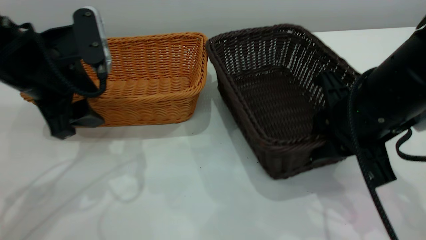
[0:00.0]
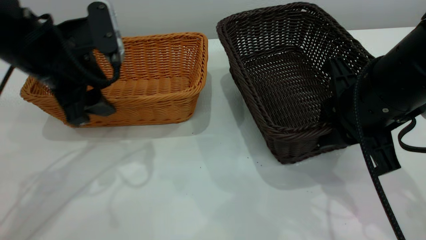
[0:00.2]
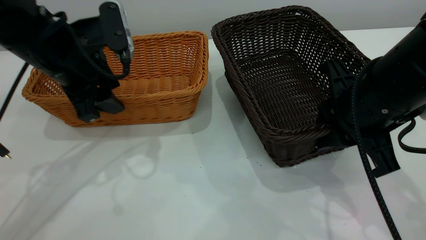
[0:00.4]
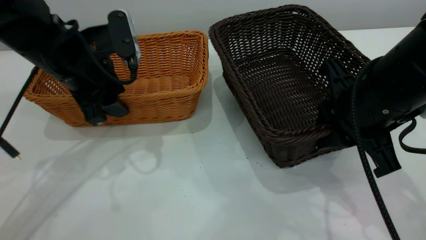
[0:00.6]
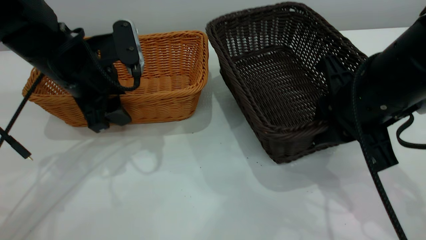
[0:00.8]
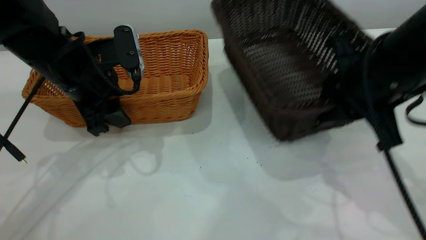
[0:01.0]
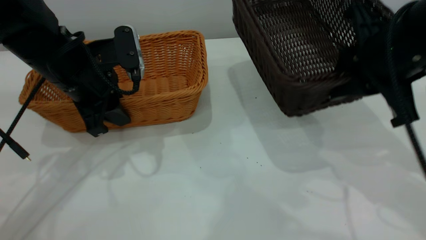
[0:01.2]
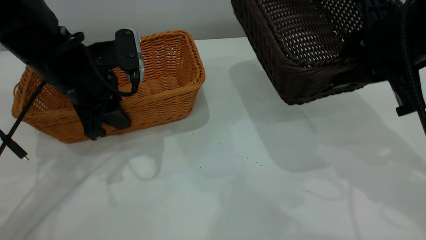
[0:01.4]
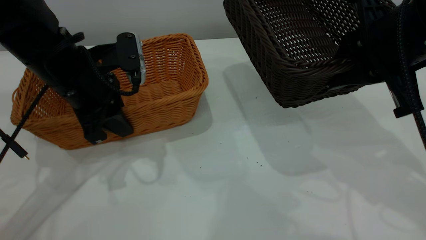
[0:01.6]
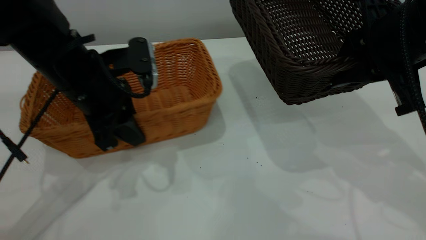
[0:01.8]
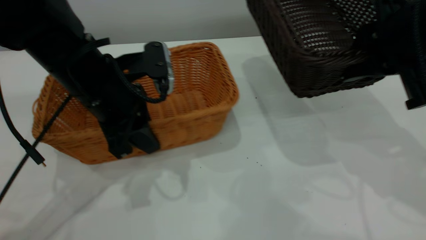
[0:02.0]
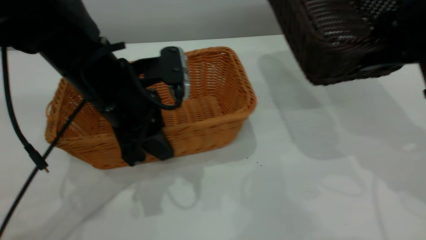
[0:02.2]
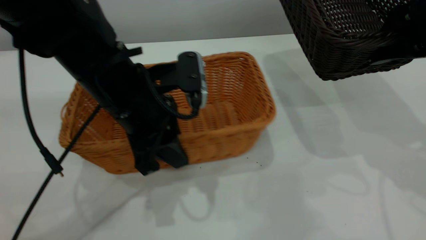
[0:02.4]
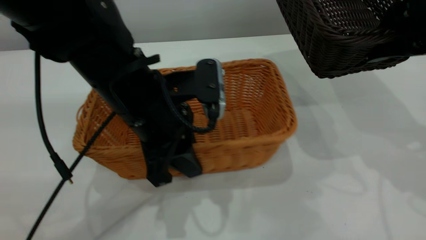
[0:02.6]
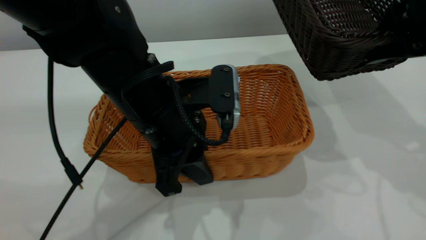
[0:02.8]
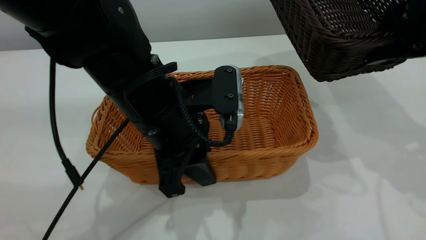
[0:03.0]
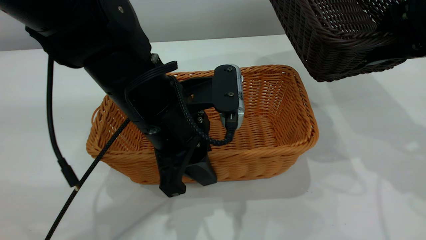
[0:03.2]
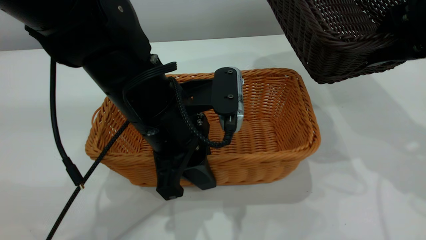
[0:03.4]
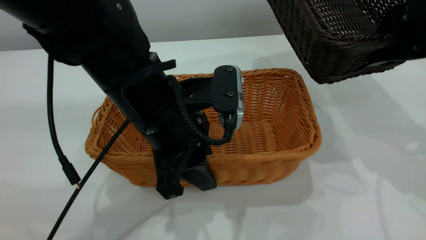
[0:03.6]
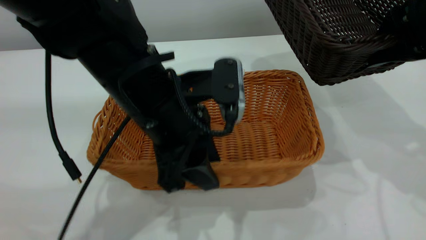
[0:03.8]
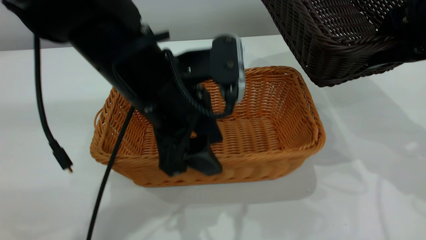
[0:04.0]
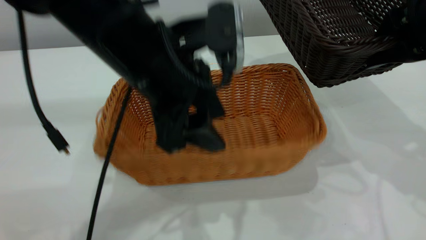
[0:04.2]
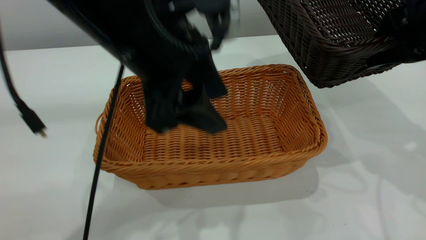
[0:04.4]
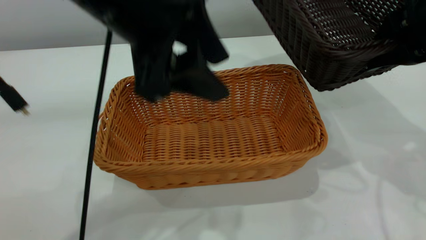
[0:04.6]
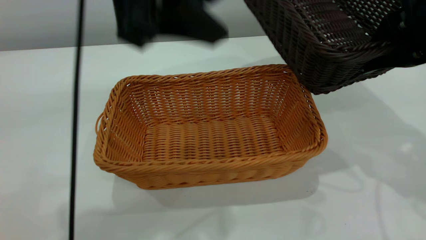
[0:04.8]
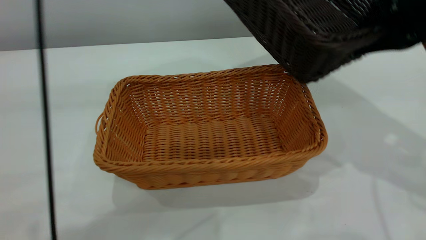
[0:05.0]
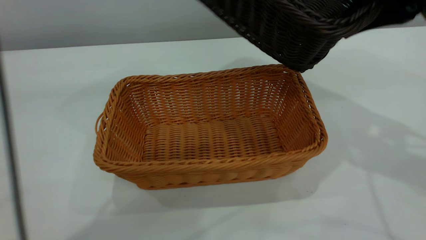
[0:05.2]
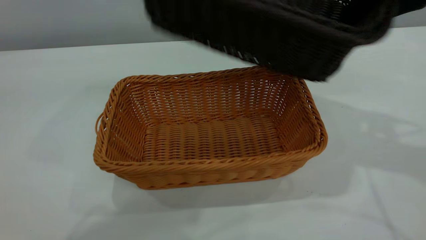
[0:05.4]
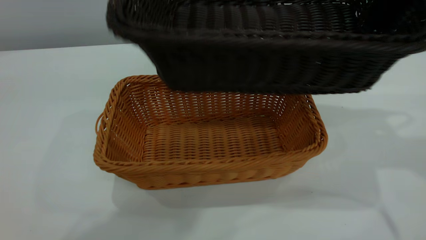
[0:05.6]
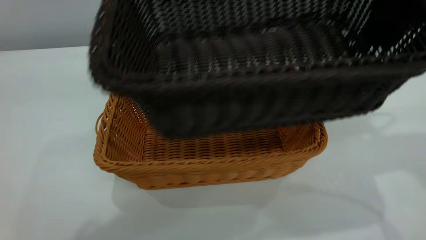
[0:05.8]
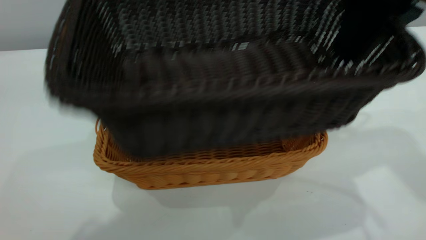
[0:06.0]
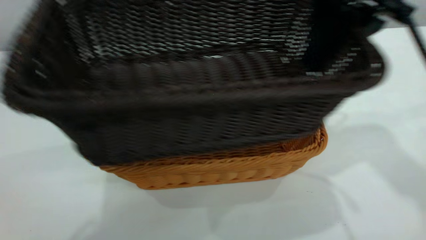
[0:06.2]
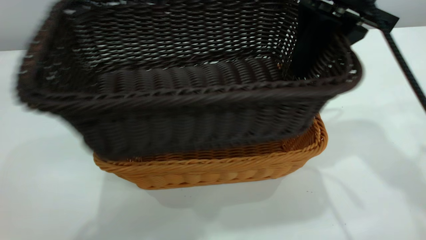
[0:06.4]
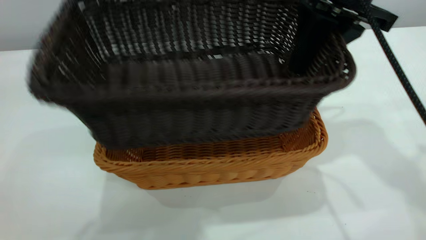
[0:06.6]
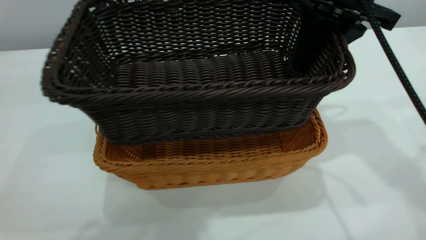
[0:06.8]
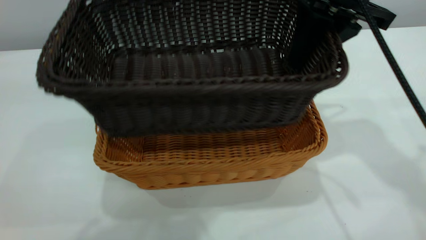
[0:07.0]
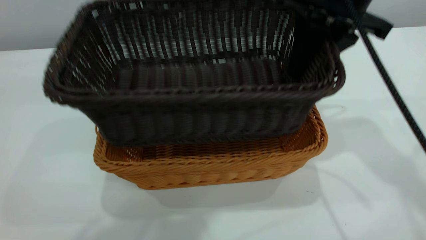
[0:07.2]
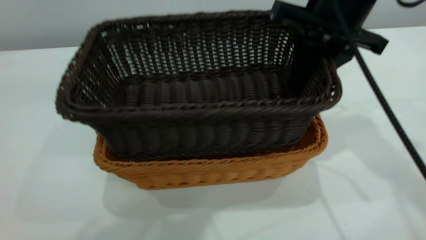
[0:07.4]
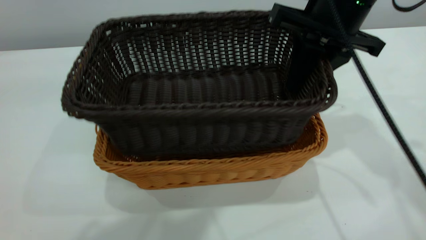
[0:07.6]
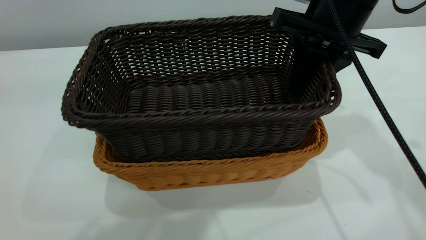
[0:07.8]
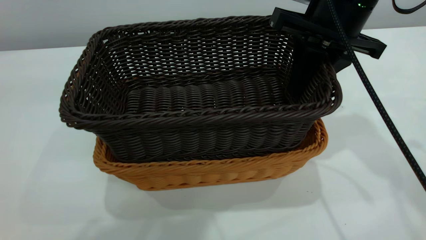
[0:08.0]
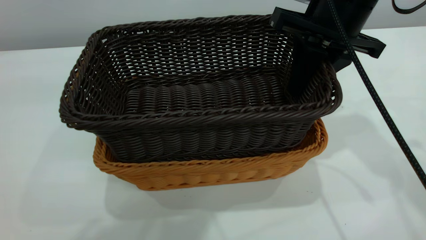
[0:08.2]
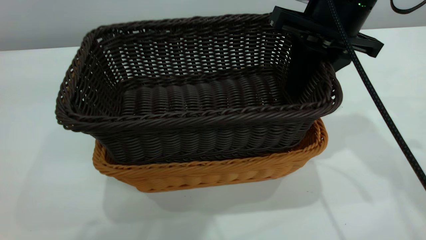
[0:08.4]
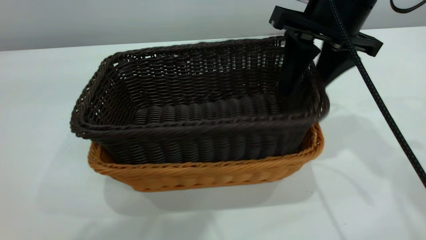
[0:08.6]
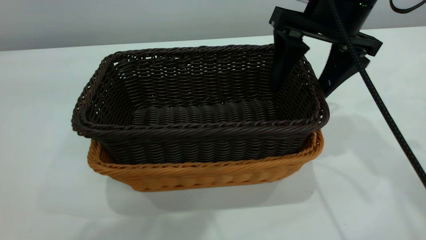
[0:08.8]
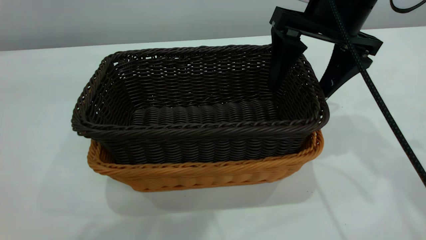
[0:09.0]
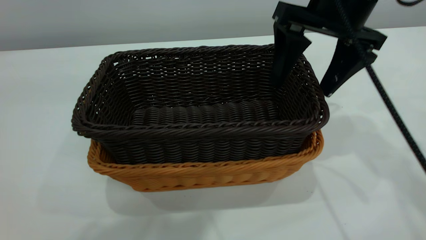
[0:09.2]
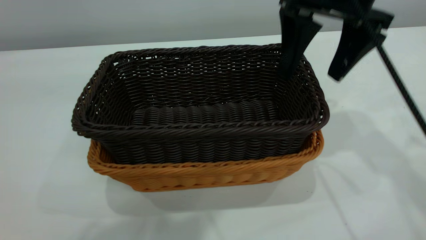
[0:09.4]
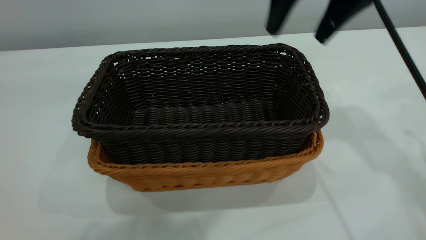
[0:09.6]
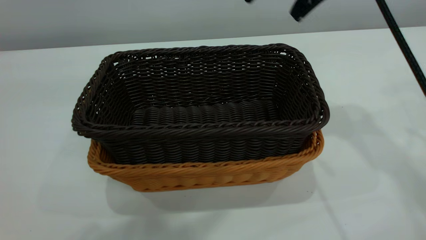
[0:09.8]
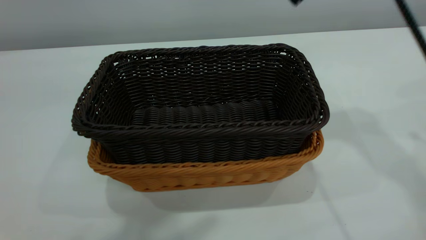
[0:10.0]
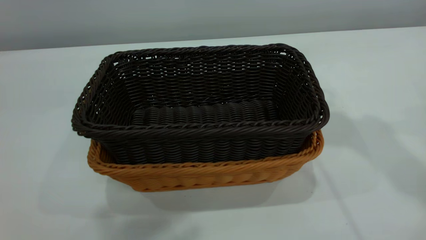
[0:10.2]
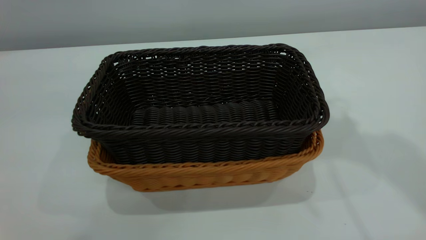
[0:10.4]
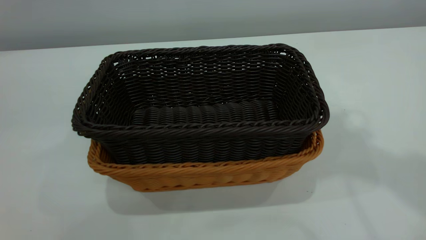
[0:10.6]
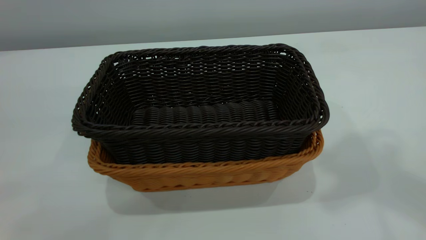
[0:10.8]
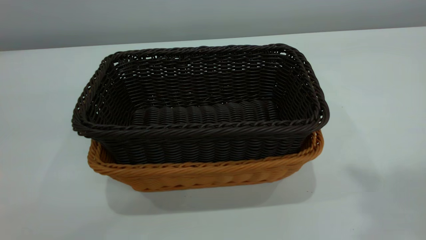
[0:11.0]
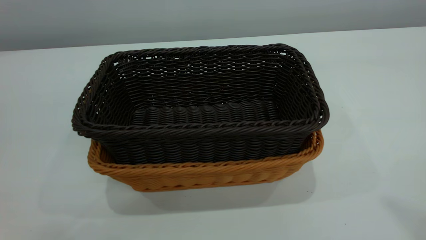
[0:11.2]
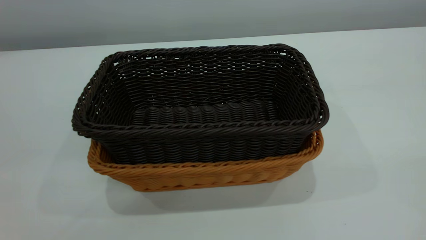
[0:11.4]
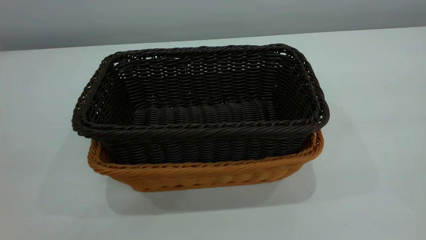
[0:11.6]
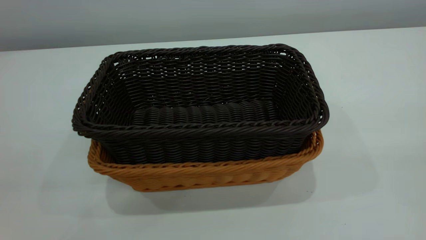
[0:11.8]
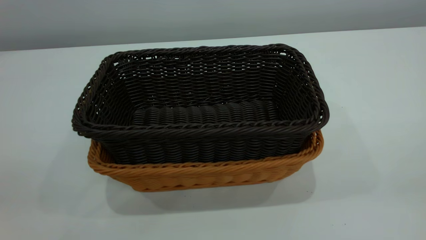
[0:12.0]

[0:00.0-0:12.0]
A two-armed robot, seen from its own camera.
Task of the whole recording: the left gripper grasp the brown basket and place it in the center of the table, the right gripper grasp the black basket and place it inside the brown one.
Step, 0:01.2 to 0:04.2: Place the light-colored basket in the center.
Step, 0:04.4 to 0:09.4: Place the dark basket on top of the light basket.
0:00.0 to 0:01.6: The left gripper moves some 5 cm, and closes, while the right gripper is displaced upward by some 5 cm.
0:01.6 to 0:03.0: The left gripper moves to the right and backward, about 15 cm.
0:03.0 to 0:04.4: The left gripper moves upward, some 10 cm, and opens up.
0:04.4 to 0:06.0: The left gripper heads upward, covering approximately 25 cm; the right gripper travels to the left and upward by roughly 10 cm.
0:06.0 to 0:07.6: The right gripper shifts approximately 5 cm downward.
0:07.6 to 0:09.0: The right gripper opens up.
0:09.0 to 0:10.4: The left gripper heads backward, covering roughly 5 cm, and closes. Meanwhile the right gripper is displaced upward by some 20 cm, and closes up.

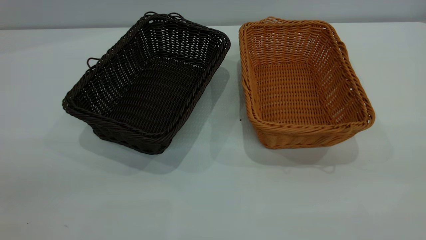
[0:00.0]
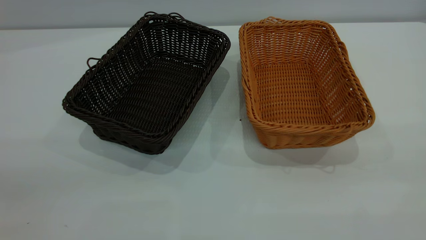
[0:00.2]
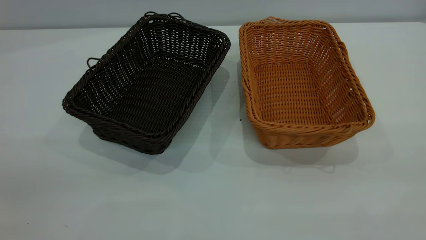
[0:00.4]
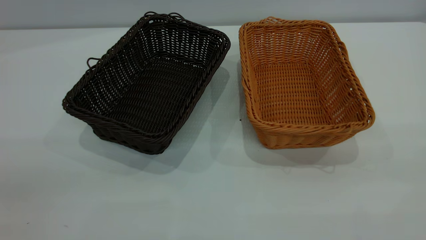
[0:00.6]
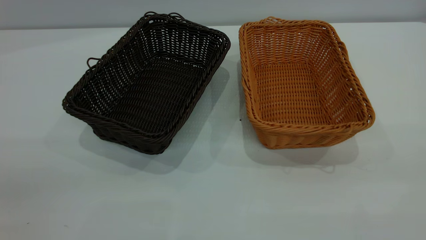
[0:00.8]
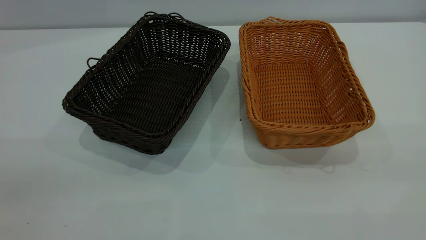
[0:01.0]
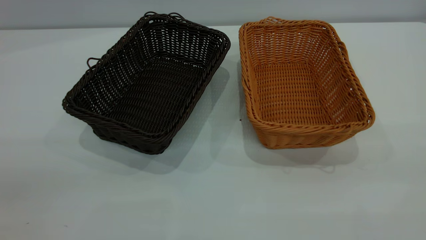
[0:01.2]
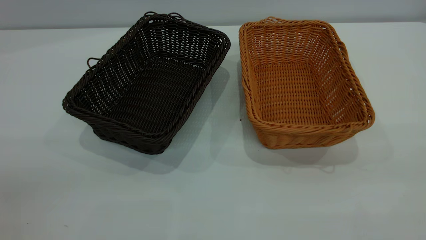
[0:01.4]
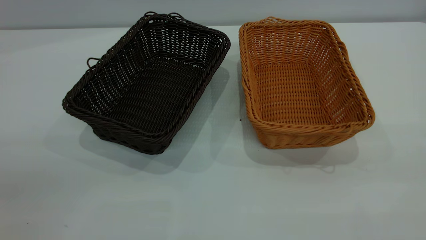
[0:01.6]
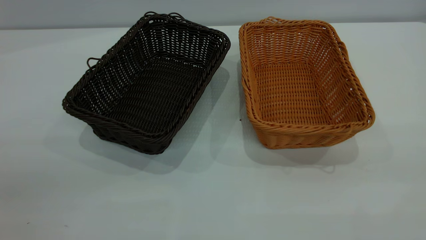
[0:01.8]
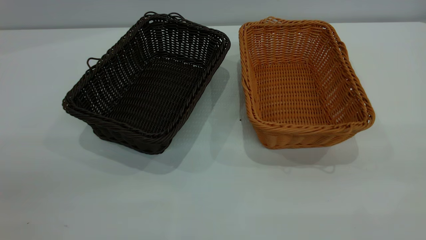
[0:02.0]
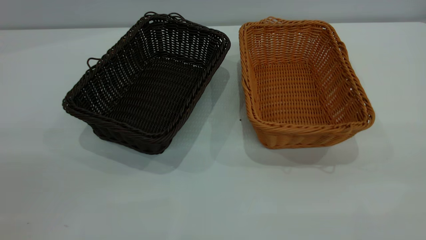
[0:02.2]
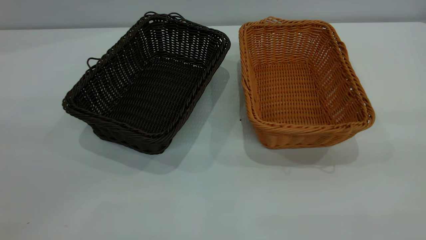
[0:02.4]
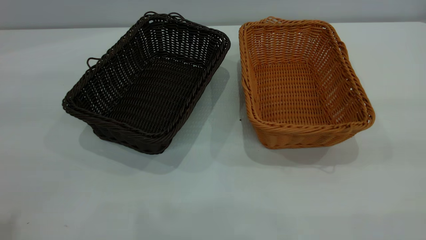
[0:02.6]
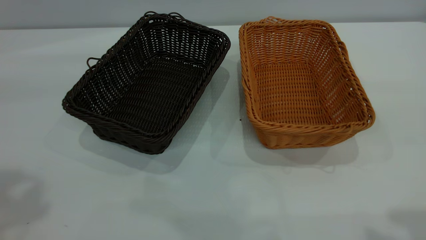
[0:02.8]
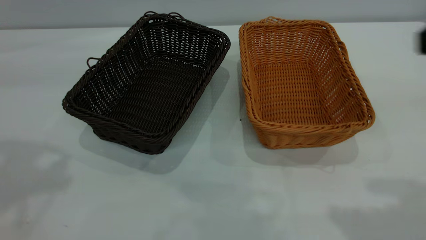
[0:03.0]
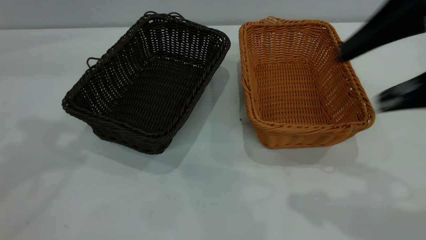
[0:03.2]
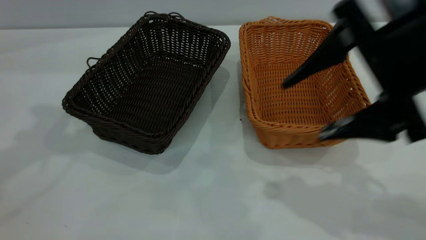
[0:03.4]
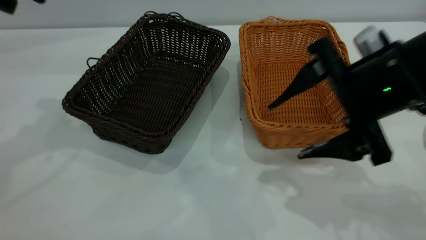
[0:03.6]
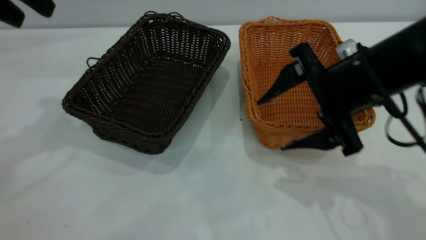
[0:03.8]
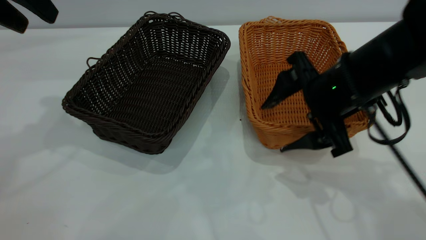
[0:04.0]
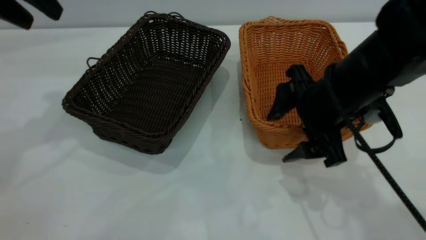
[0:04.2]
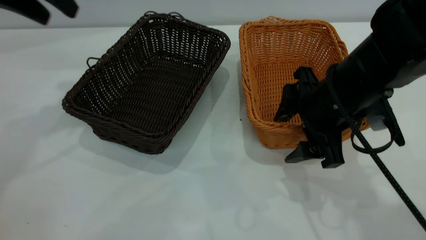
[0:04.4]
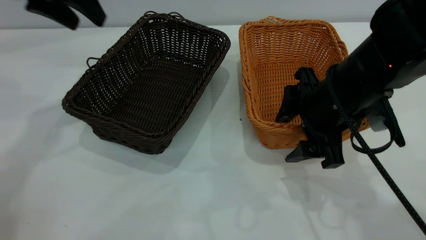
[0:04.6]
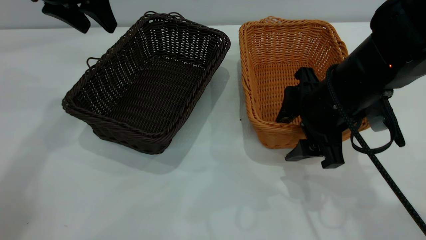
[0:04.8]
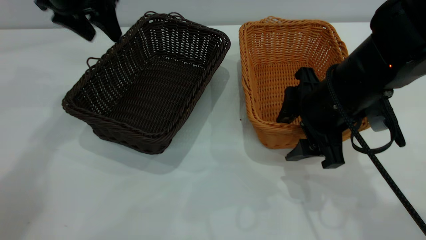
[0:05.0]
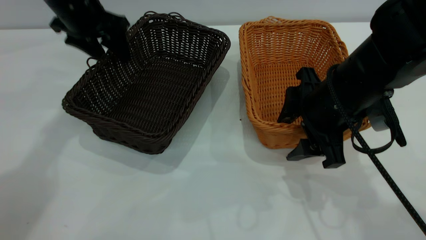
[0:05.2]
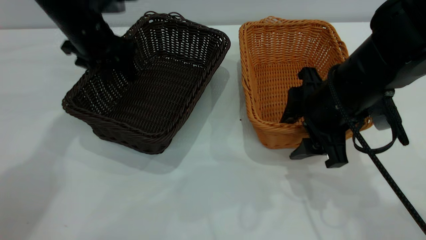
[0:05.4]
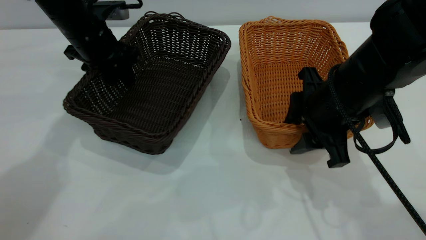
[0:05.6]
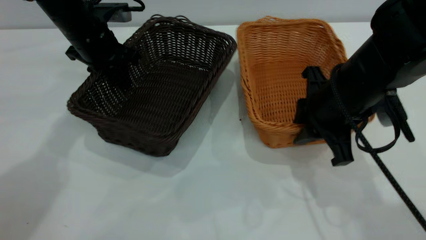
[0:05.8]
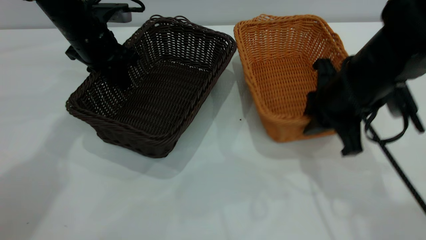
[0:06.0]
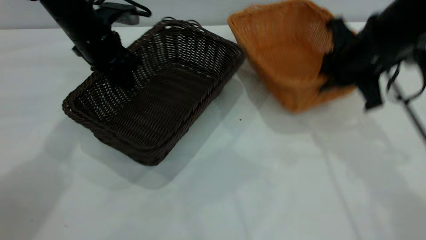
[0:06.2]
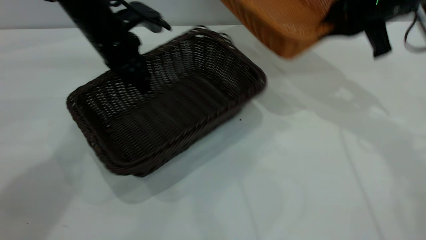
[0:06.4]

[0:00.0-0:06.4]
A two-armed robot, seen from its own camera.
Task of the whole recording: the left gripper grasp the black basket and place it in the center of the table, the right gripper grasp the brown basket and place it inside the black one.
Step, 0:00.0 to 0:06.2: Pick up the light basket with the right gripper.
0:00.0 to 0:01.6: The two grippers keep their place.
0:01.6 to 0:03.2: The right gripper shifts roughly 20 cm forward and to the left.
0:03.2 to 0:04.8: The right gripper is displaced downward and forward by some 15 cm. Meanwhile the left gripper goes some 20 cm forward and downward.
0:04.8 to 0:06.4: The right gripper shifts about 15 cm forward, upward and to the right, and closes its fingers. The left gripper travels downward and to the right by roughly 15 cm, and closes.
